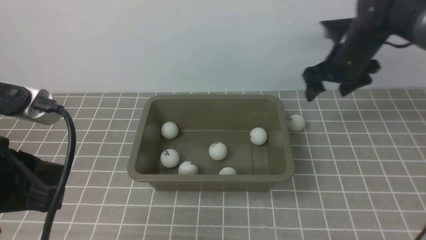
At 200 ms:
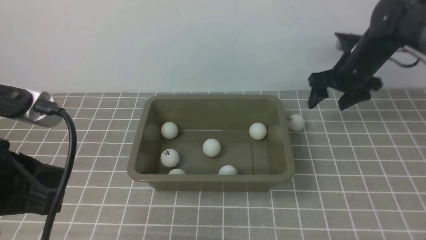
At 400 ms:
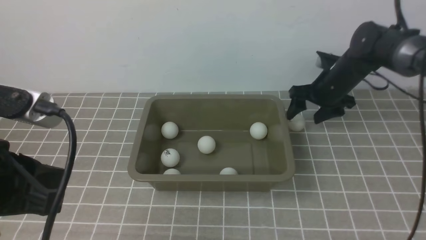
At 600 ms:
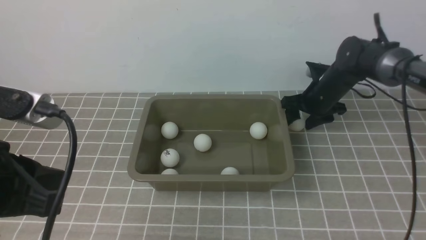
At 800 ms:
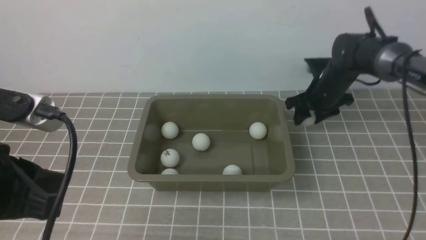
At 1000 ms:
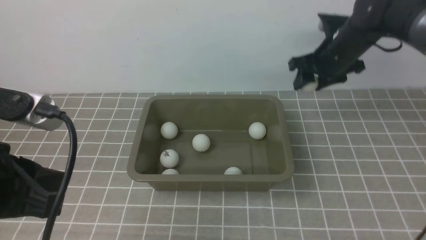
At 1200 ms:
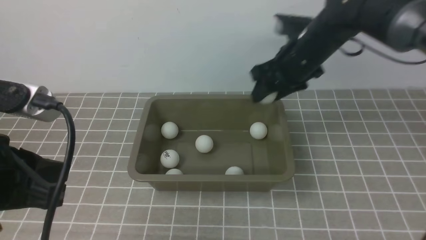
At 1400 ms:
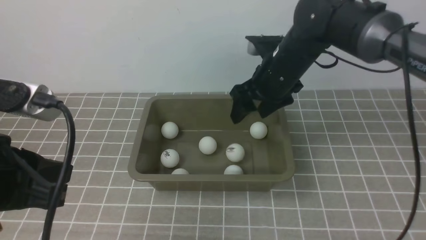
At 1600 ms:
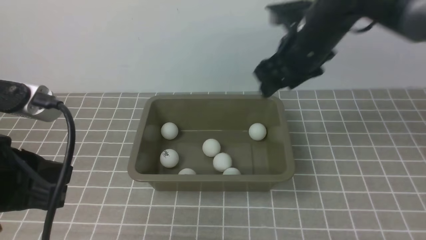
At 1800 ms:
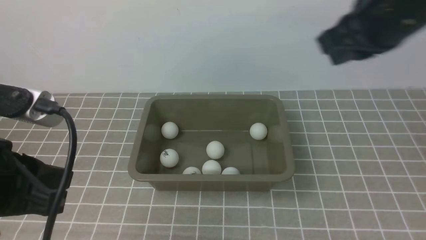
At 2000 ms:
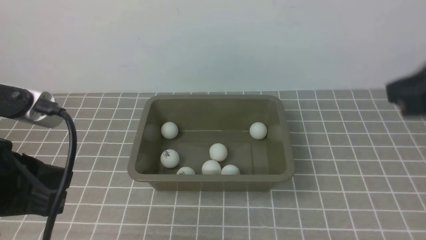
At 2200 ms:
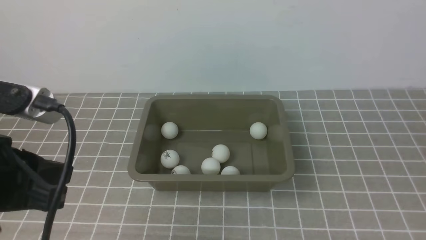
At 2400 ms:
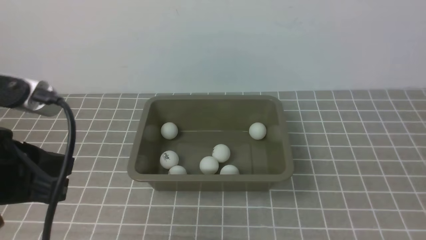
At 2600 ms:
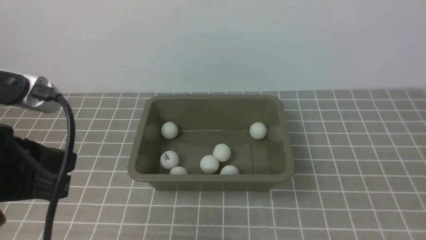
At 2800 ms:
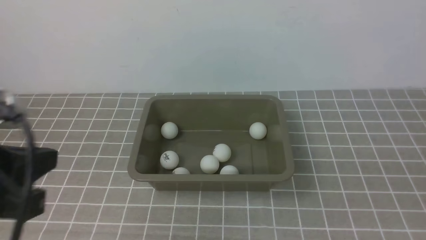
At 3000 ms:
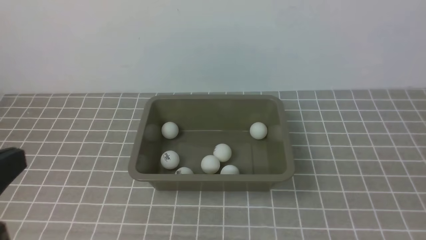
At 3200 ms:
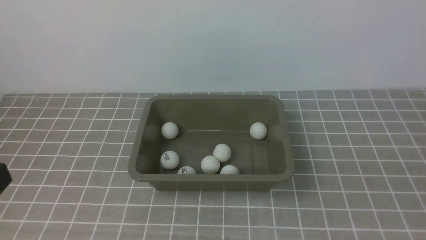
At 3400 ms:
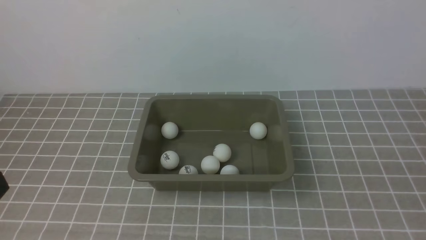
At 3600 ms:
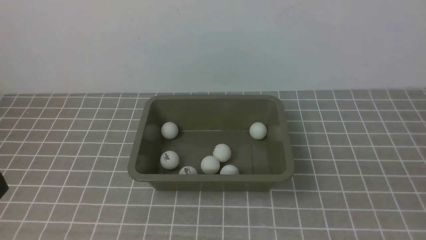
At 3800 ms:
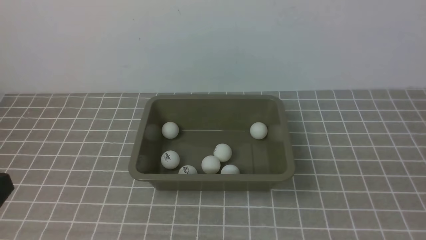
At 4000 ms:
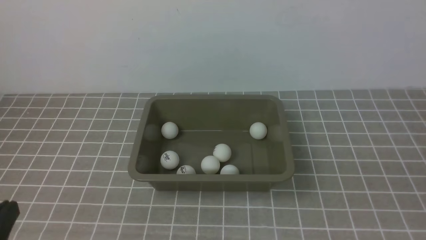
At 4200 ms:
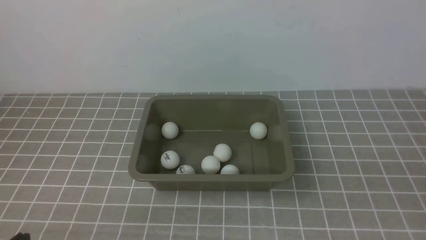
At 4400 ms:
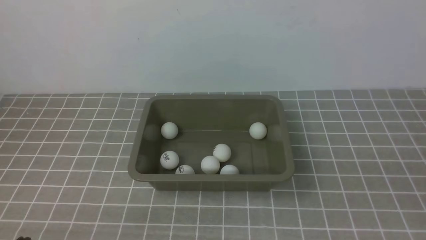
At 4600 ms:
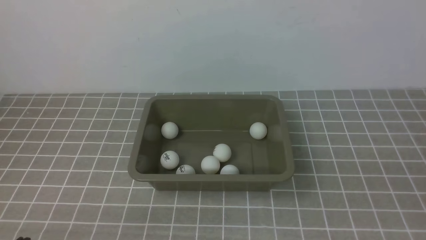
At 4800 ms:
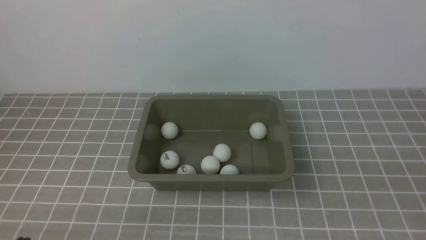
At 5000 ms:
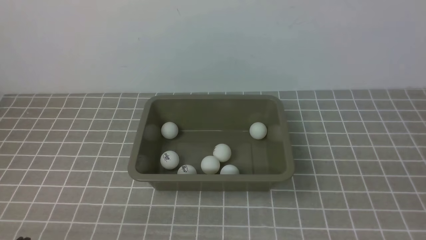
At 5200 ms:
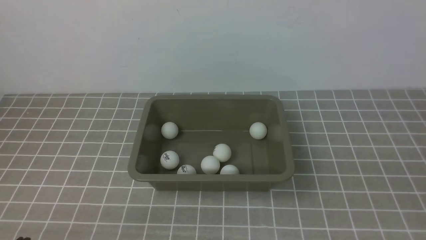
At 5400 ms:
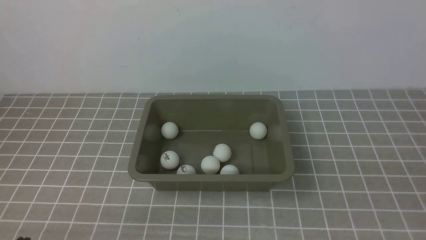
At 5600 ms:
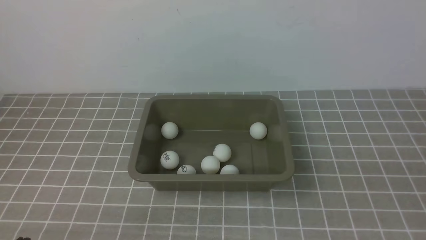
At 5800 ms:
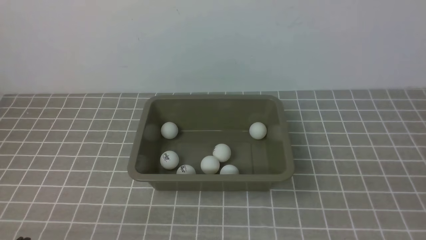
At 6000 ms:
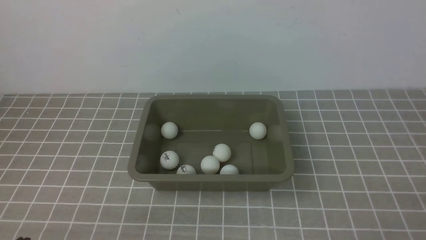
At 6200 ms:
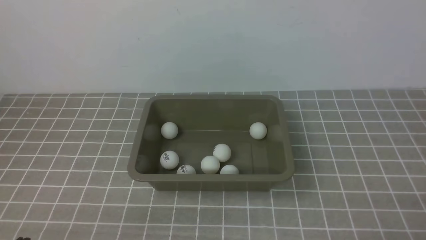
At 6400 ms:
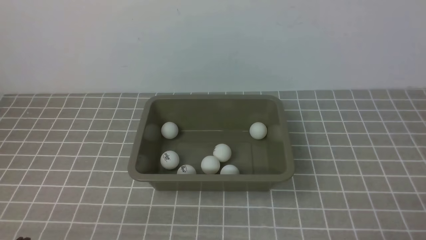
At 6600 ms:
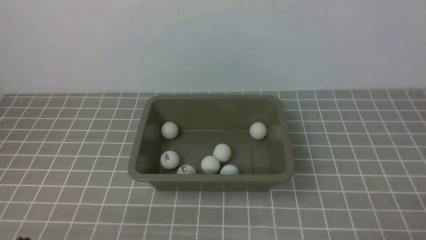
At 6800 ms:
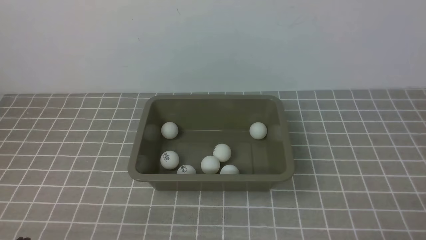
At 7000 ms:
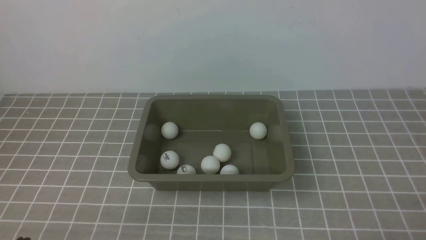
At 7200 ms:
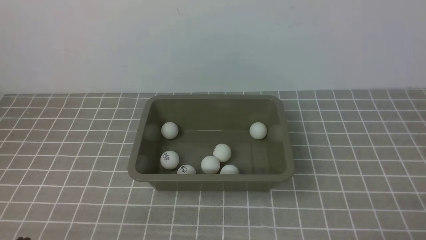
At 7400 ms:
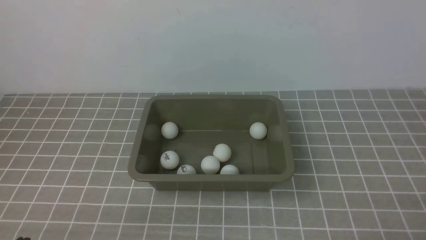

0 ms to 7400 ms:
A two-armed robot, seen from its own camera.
Step, 0 ms to 800 ms: use the right arm to clamp the table tennis ball closest to it.
Step, 1000 ms to 1400 ms: use the right arm to put the table tennis ball into the box.
0 ms to 1400 ms: The right gripper moves to the left, approximately 5 cm, and reaches roughly 10 cm downward, then returns.
1400 ms to 3000 ms: The left gripper ends up some 5 cm from where it was, while the right gripper heads backward and to the right, covering approximately 40 cm, and closes.
3000 ms to 4400 ms: The left gripper heads downward, covering about 15 cm.
